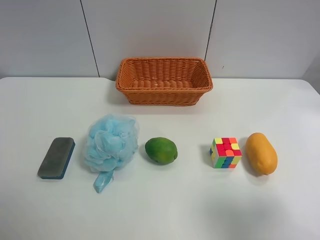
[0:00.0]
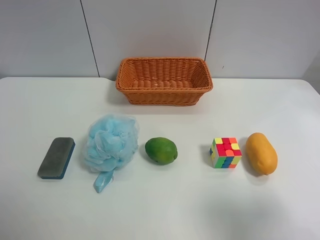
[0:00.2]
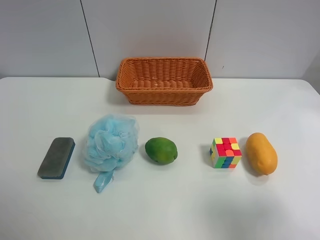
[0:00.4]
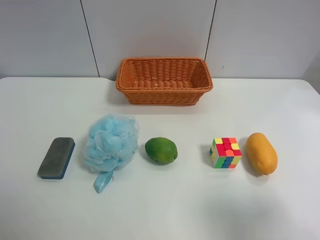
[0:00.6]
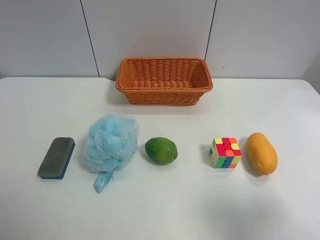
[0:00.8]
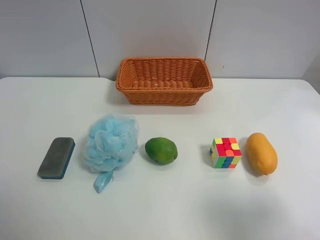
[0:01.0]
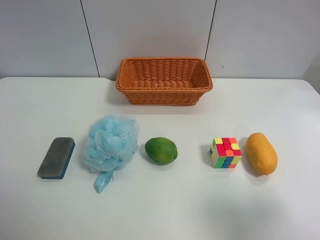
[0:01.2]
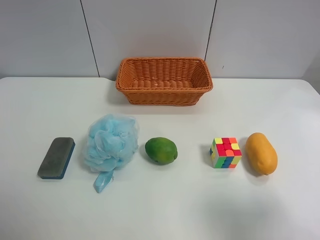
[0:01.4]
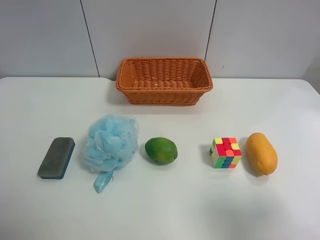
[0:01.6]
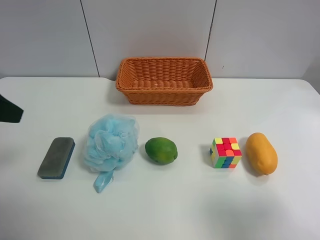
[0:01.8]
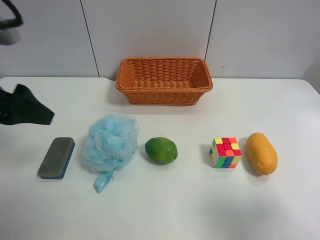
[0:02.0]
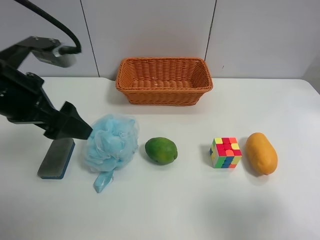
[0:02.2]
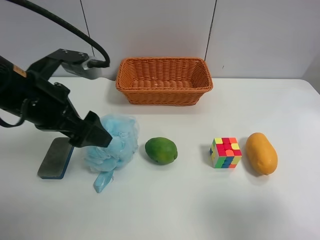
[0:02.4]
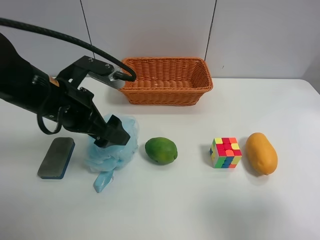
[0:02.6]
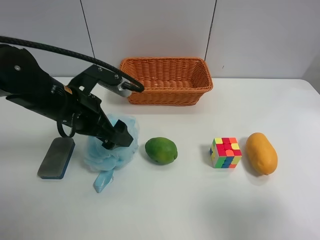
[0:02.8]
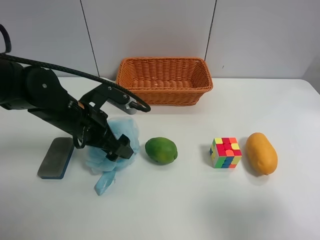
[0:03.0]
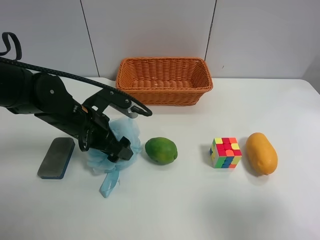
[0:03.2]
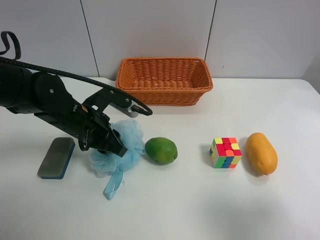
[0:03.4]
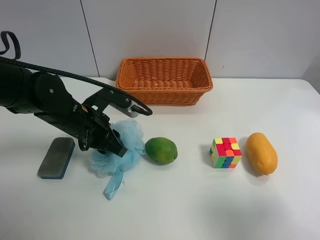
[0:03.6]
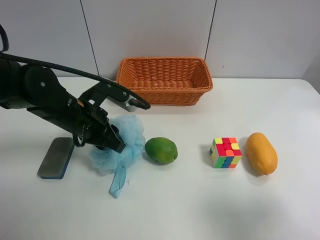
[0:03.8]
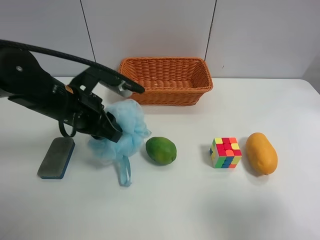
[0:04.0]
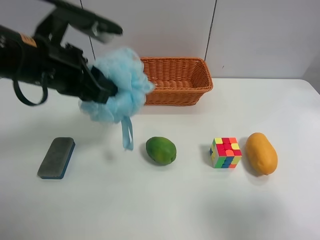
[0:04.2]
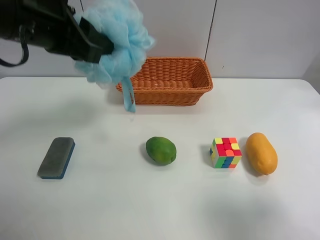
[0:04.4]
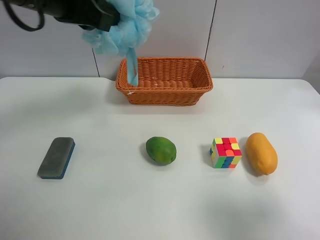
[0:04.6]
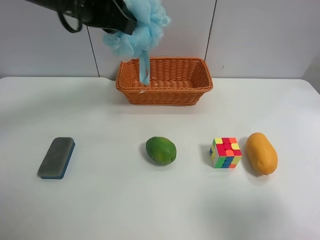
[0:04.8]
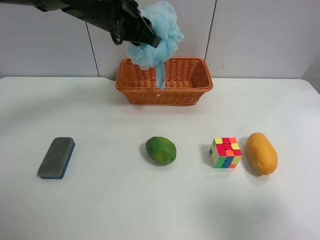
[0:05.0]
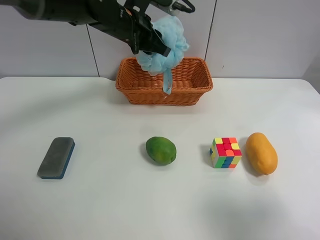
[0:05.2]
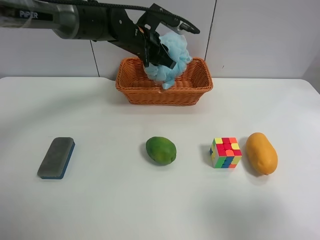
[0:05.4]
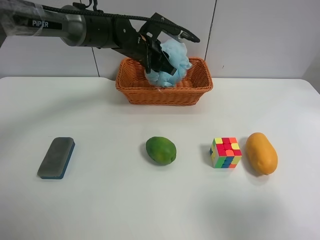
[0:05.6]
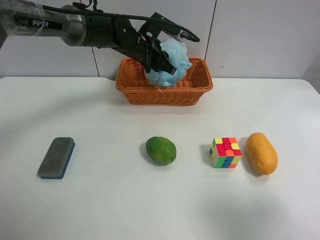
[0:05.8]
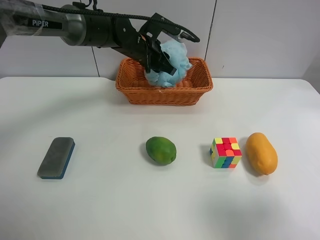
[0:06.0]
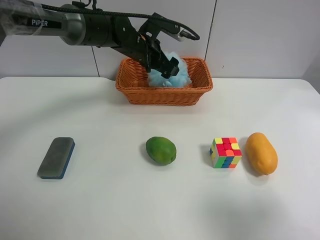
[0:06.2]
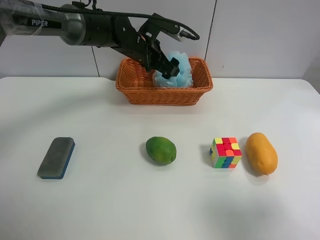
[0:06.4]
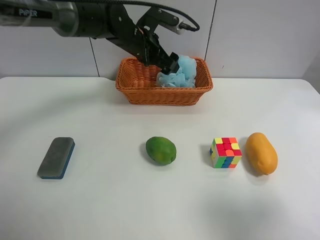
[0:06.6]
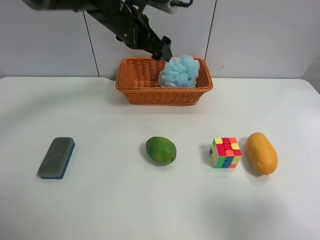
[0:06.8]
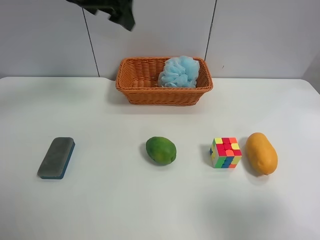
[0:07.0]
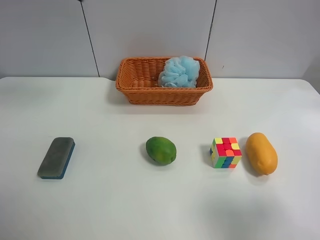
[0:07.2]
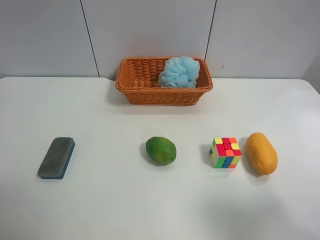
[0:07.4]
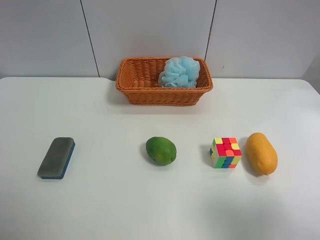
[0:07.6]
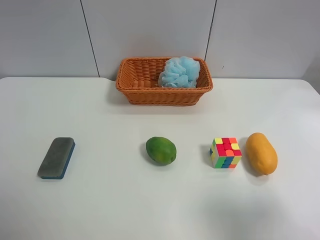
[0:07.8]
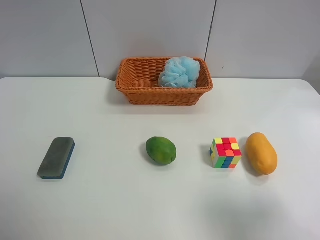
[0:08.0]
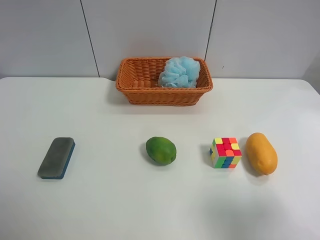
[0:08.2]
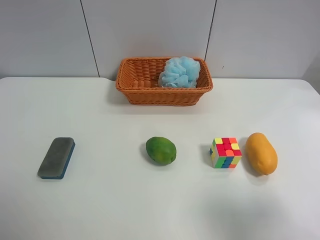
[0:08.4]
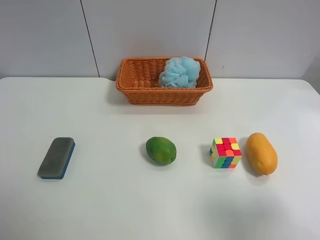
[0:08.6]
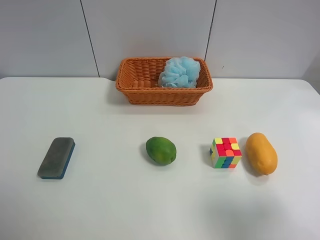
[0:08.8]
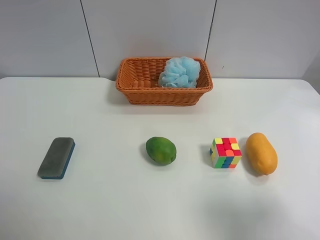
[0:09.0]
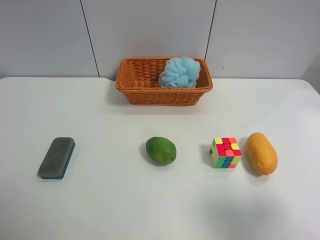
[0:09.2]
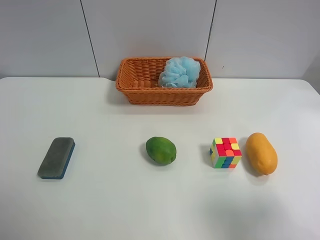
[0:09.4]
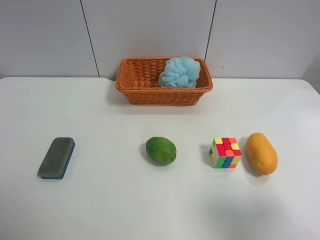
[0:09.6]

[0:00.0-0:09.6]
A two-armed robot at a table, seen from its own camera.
Task of the whole recording: use the left gripper to grab items from the table and place them in the basket.
Step, 0:00.0 to 0:03.6: Grasp the Shower puff with the left gripper.
Step, 0:03.8 to 0:06.2: Place the Shower puff into the basket with the left gripper.
0:01.6 to 0:03.2: The left gripper shifts roughly 30 cm downward, to the right and forward.
0:03.2 to 0:04.8: The left gripper travels upward by roughly 20 cm, and closes up.
0:04.8 to 0:06.4: The left gripper heads downward, forward and to the right, covering approximately 20 cm, and opens.
0:06.4 to 0:08.0: The left gripper moves backward, to the left and upward, roughly 60 cm.

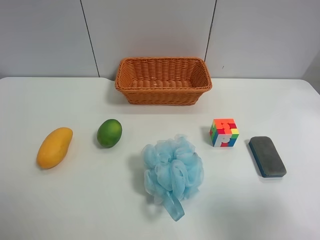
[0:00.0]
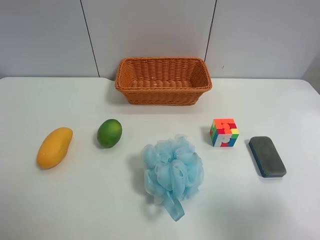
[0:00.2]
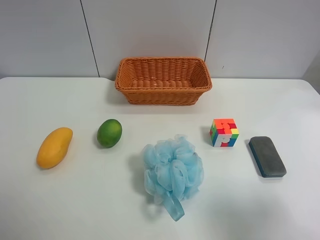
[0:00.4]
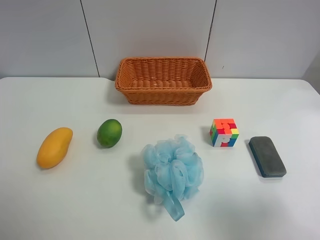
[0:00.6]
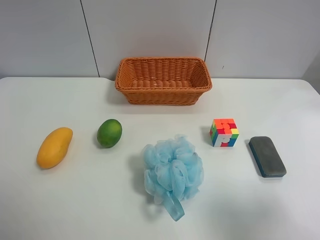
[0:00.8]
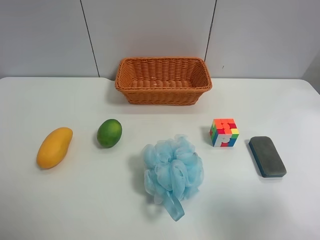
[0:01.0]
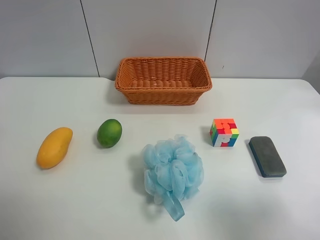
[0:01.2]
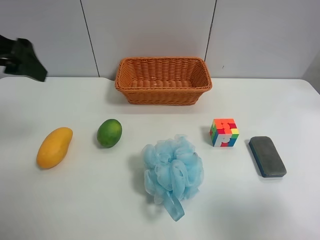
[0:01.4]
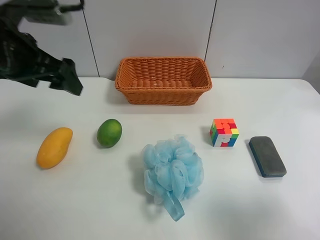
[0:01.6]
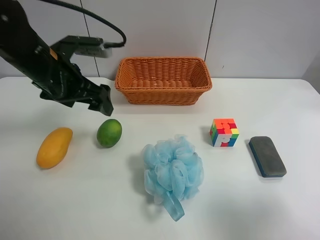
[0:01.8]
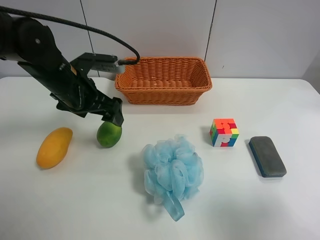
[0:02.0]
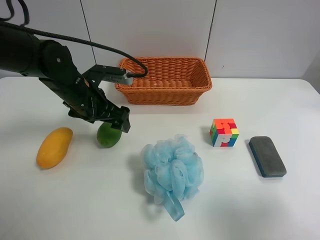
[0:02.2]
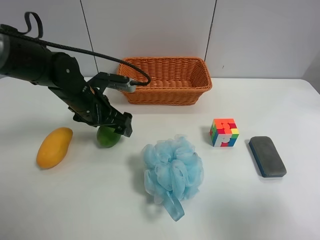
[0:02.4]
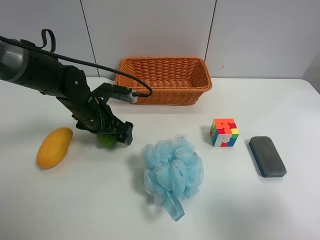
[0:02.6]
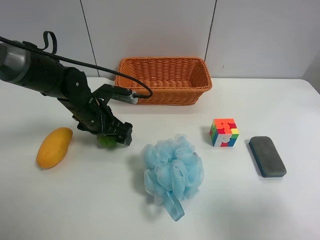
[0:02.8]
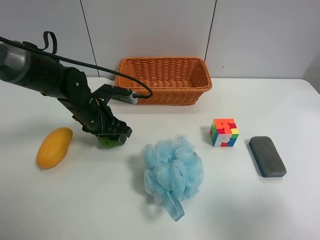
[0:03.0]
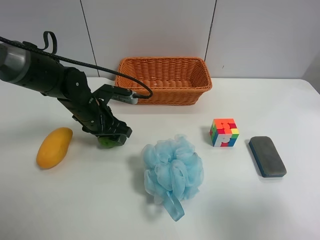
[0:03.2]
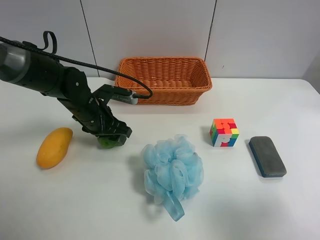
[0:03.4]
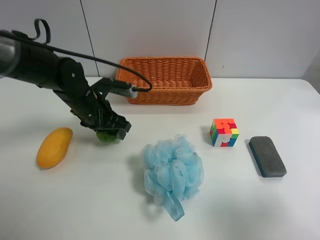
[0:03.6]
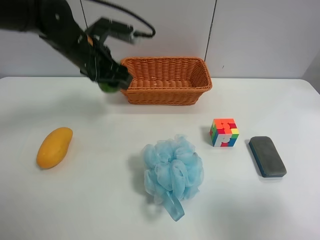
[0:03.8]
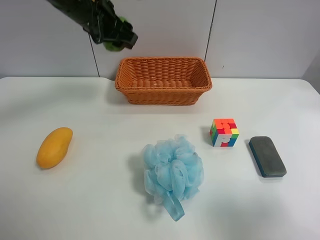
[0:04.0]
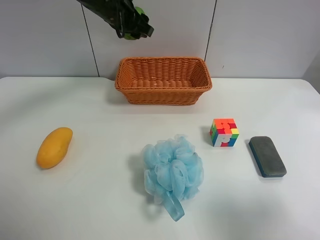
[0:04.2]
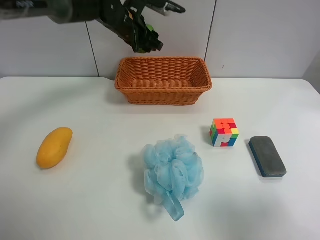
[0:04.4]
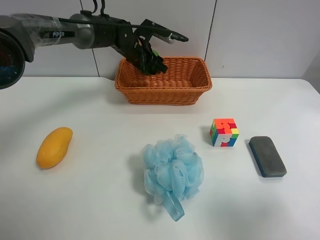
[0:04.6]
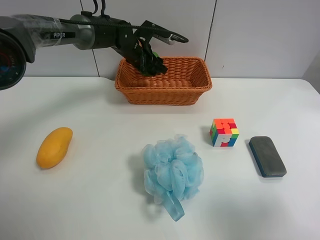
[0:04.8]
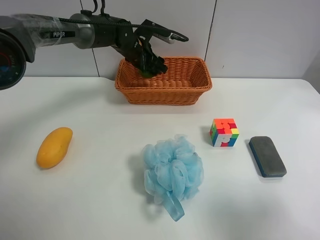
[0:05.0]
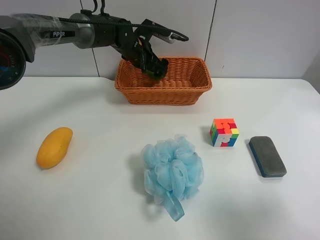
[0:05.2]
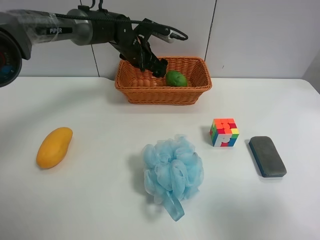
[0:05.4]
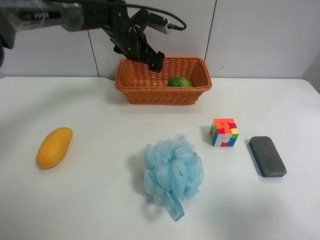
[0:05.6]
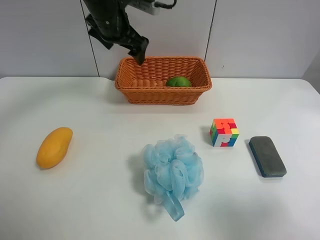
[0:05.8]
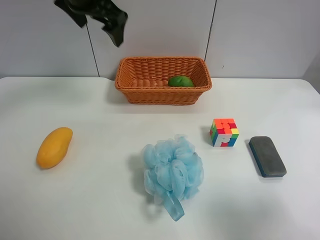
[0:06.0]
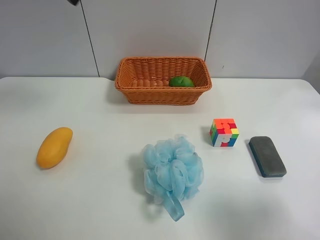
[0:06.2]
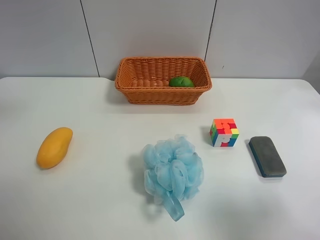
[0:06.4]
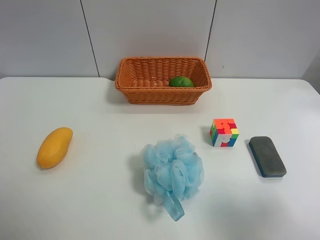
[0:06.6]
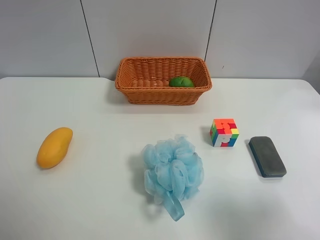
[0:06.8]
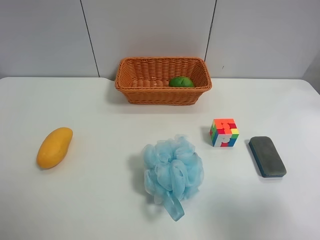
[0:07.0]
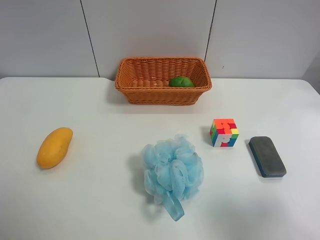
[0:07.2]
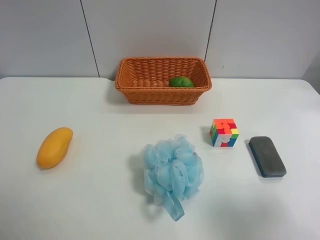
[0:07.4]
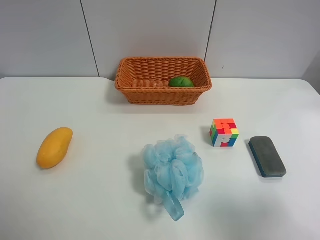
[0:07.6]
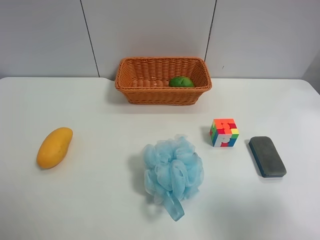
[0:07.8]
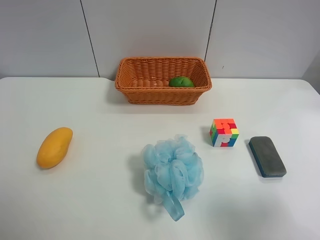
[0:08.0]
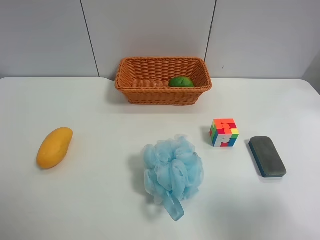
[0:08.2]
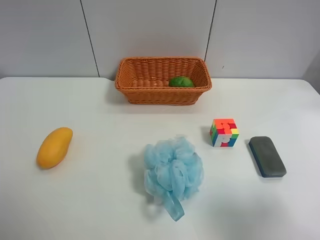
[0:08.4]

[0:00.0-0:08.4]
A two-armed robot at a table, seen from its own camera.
Task of the whole recording: use the left gripper to grab items from the table and place them in the basket.
Step, 0:00.0 to 0:03.4: Grasp the apple rubber puff with the left gripper.
Step, 0:03.6 to 0:05.2: Place the apple rubber puff into the basket with the left gripper.
0:00.0 to 0:01.4: The left gripper is displaced forward by about 25 cm.
0:01.4 to 0:02.8: The left gripper moves downward and to the right, about 25 cm, and closes its fingers.
0:02.8 to 0:04.2: The left gripper moves upward and forward, approximately 20 cm, and closes.
0:04.2 to 0:05.6: The left gripper is displaced downward by approximately 5 cm, and opens up.
0:05.6 to 0:07.0: The left gripper goes roughly 50 cm backward and to the left.

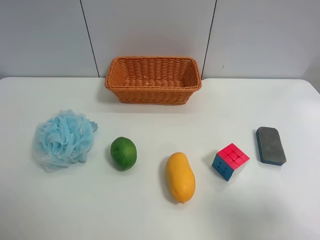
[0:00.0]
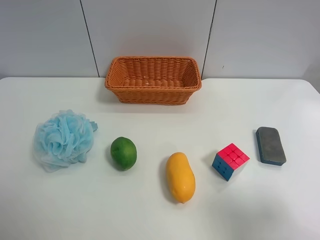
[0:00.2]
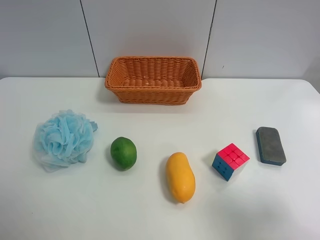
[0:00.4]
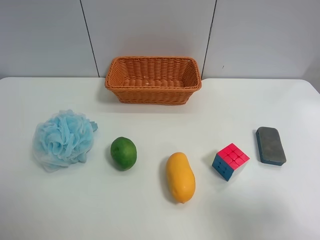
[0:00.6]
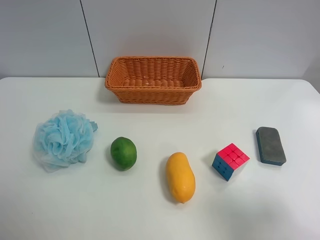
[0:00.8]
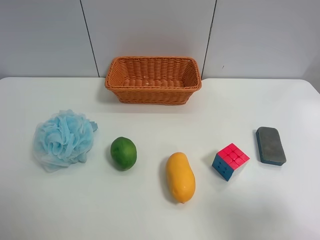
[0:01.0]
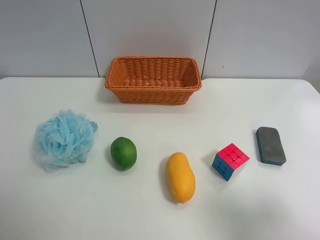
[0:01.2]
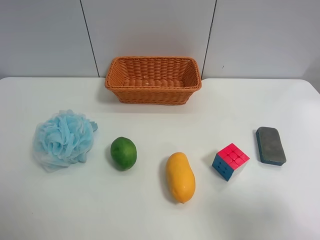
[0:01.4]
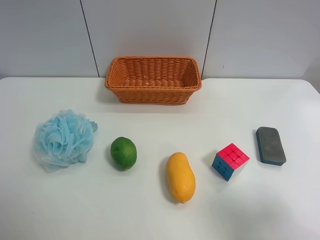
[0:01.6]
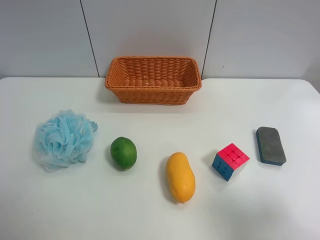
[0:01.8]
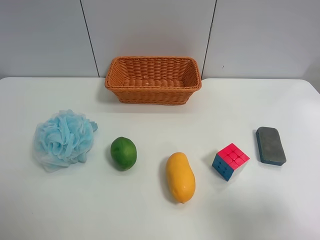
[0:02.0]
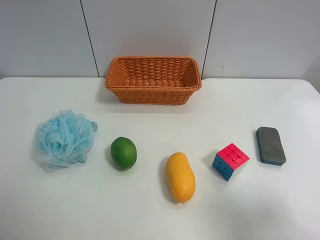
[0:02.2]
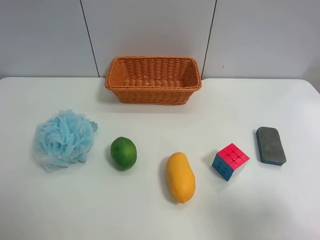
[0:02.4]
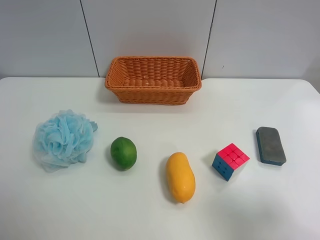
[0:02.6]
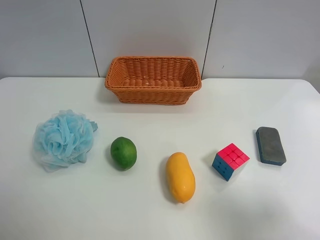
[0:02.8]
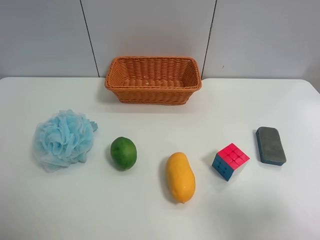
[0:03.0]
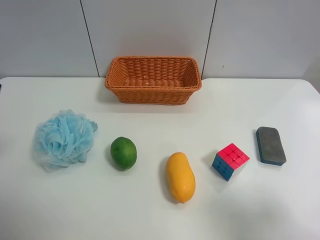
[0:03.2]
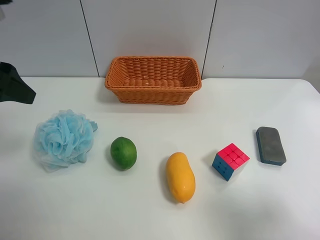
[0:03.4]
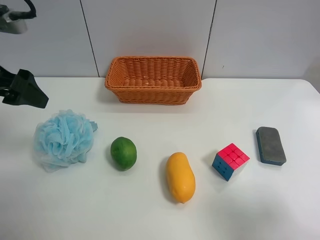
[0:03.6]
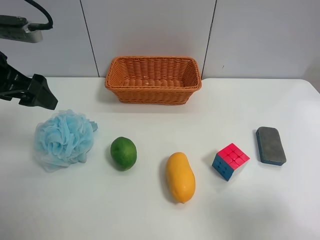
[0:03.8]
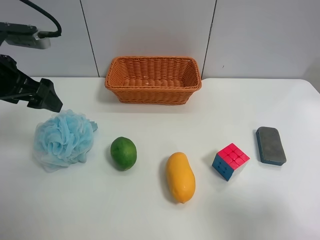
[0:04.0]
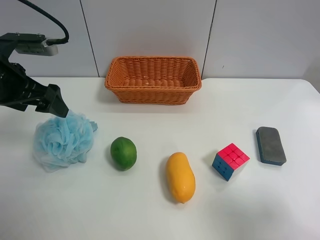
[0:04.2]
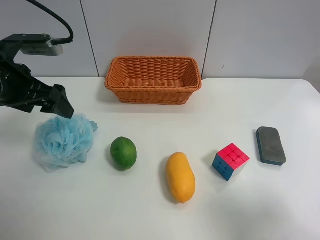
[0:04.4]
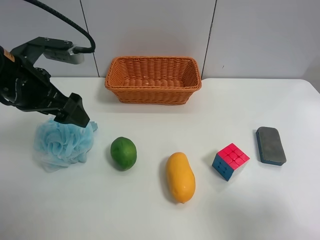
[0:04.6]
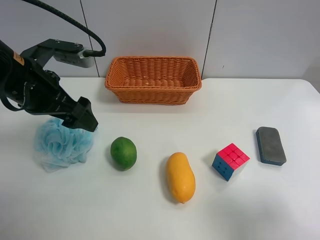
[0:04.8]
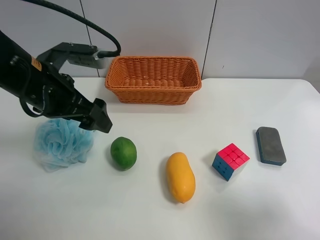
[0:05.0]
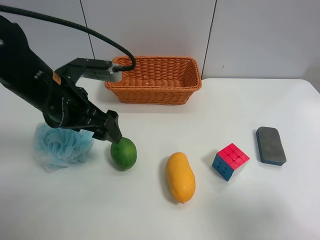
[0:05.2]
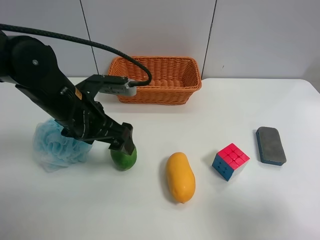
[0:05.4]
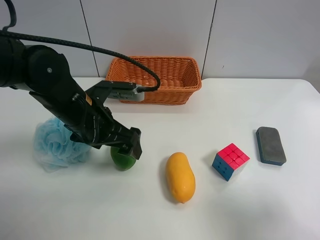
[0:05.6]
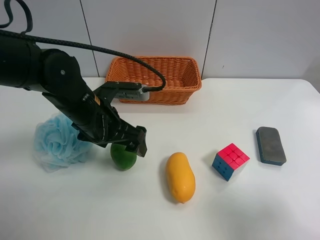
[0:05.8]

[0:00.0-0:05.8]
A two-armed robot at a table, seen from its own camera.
Task of the whole recording: use the left gripper to grab items from the table and place them in the basket.
0:00.0 to 0:01.4: Both grippers stay put.
0:02.8 to 0:04.4: The left gripper goes about 20 cm forward and downward.
0:04.4 to 0:05.8: The left gripper moves to the right and downward, some 15 cm.
